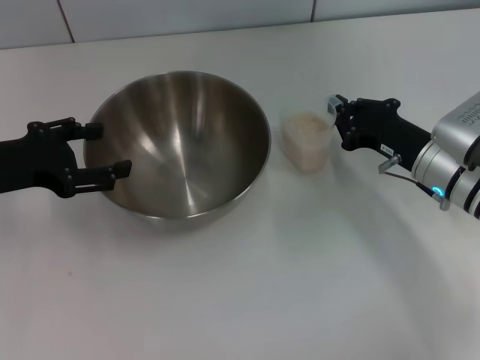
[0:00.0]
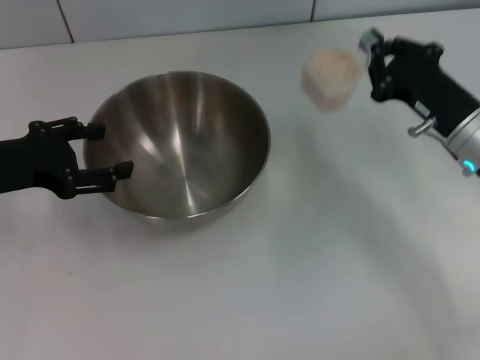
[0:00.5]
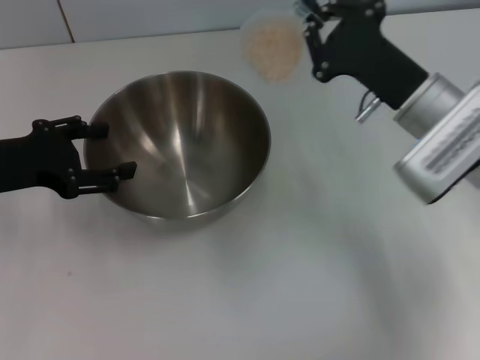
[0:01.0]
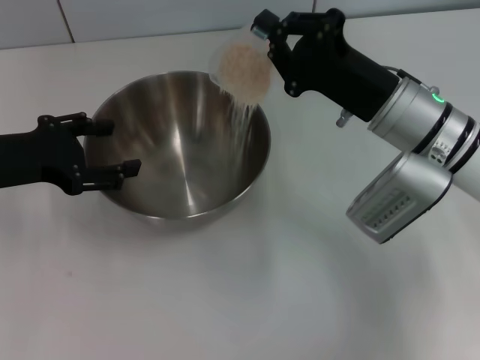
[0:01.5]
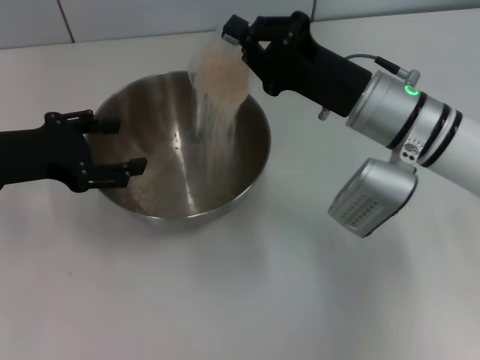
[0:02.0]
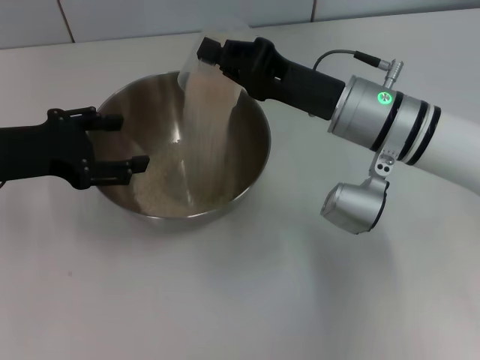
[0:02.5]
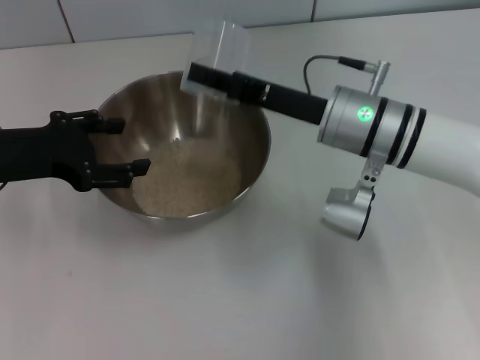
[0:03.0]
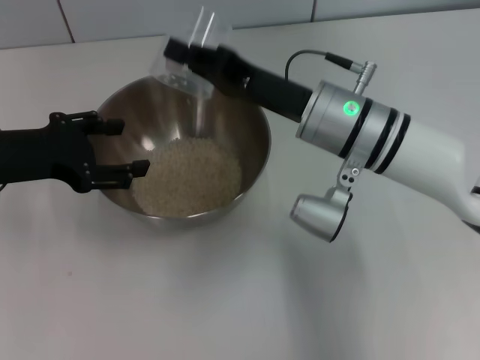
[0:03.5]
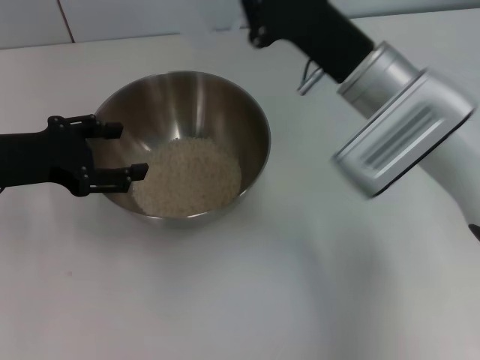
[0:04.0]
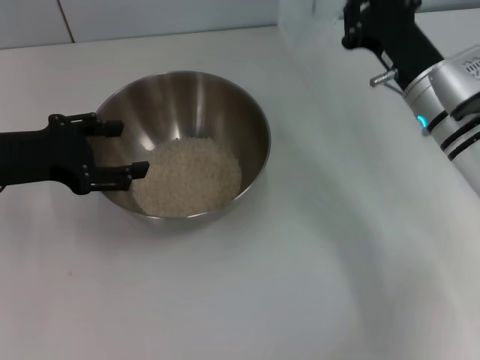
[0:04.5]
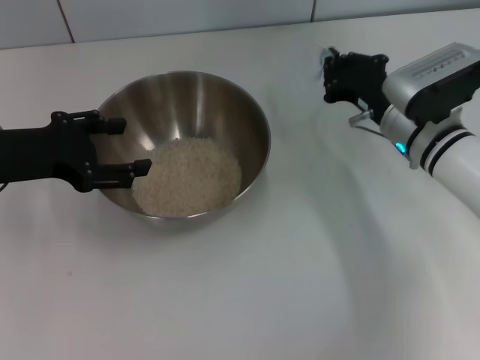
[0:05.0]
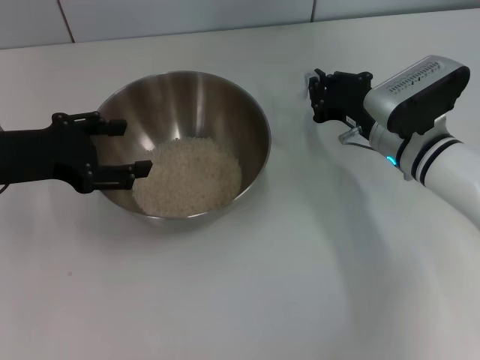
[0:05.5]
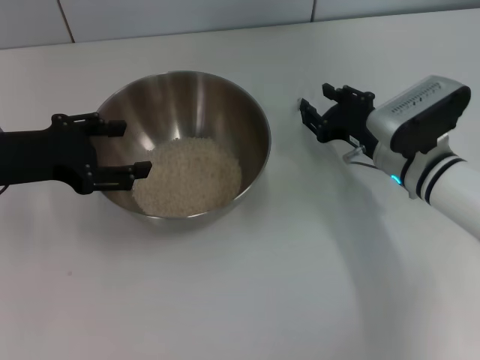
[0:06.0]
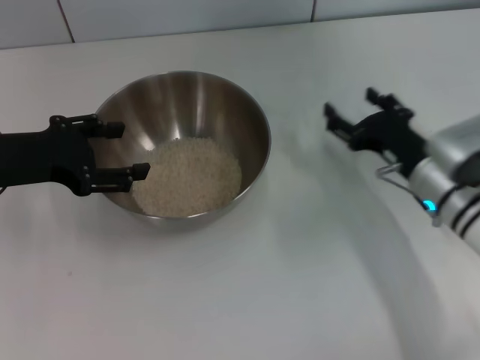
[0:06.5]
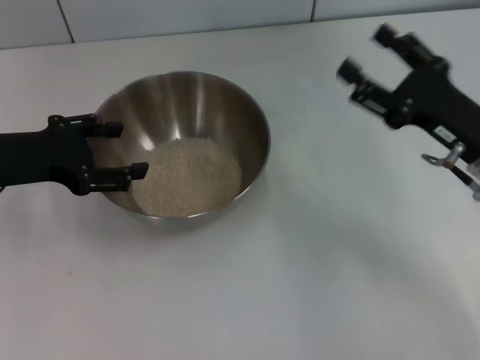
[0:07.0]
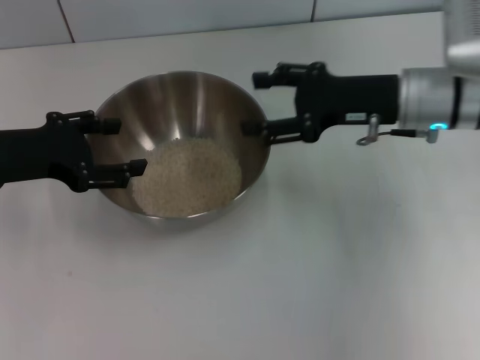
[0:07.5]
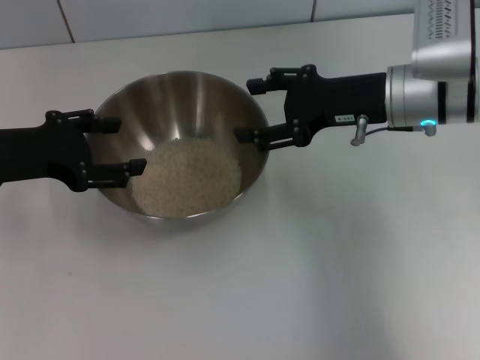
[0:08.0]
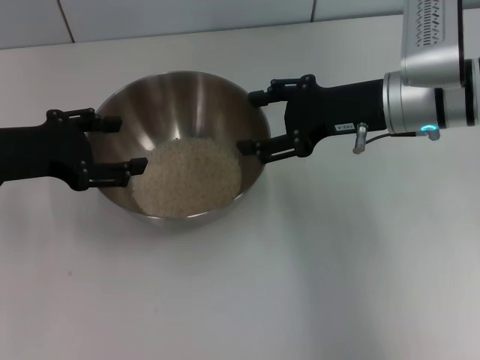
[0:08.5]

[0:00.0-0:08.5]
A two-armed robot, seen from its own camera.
Task of the whole recording: Place the bowl in the middle of the table with one hand and pour the rice from the grain cup into it with the other hand.
Step, 0:01.0 to 0:04.0: Pour the rice from the cup into the bowl with the right gripper.
Step, 0:04.5 to 0:06.5: Place the cup on the table with the right gripper.
0:00.0 to 0:02.0: The right gripper goes about 10 cm to the left and upward.
0:04.0 to 0:06.5: The right gripper moves downward and to the right, about 15 cm, and opens its fingers.
0:06.5 to 0:08.5: The right gripper shifts approximately 15 cm upward and forward.
